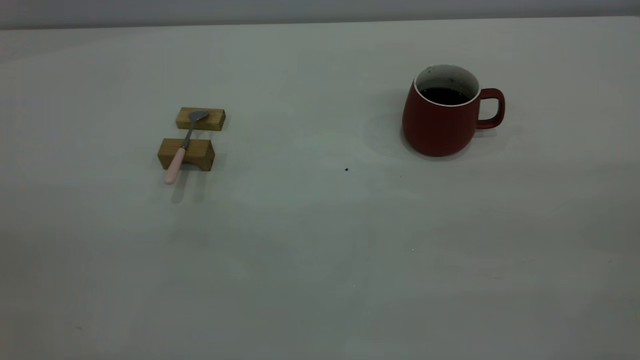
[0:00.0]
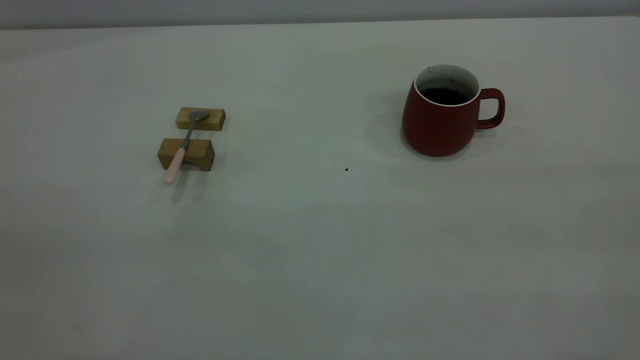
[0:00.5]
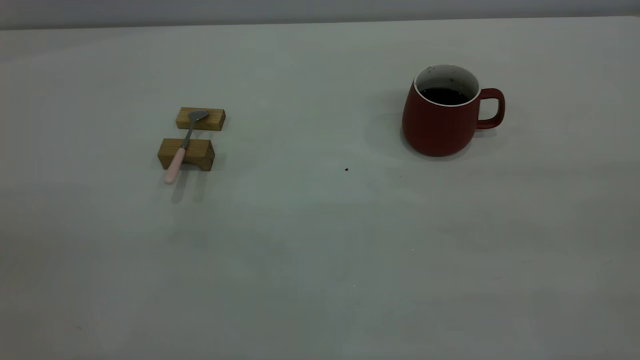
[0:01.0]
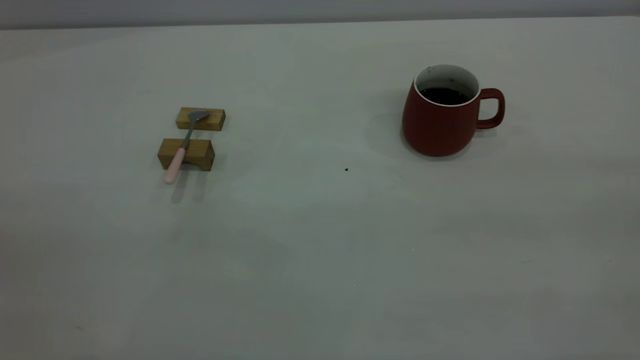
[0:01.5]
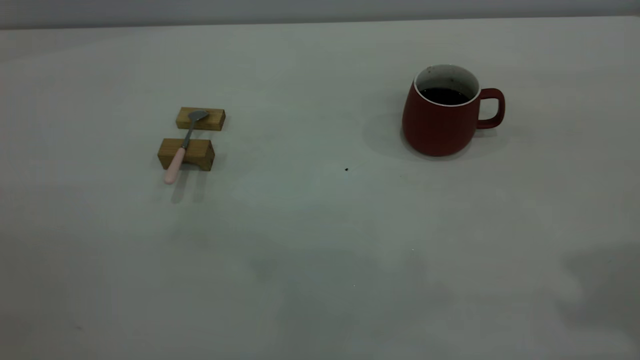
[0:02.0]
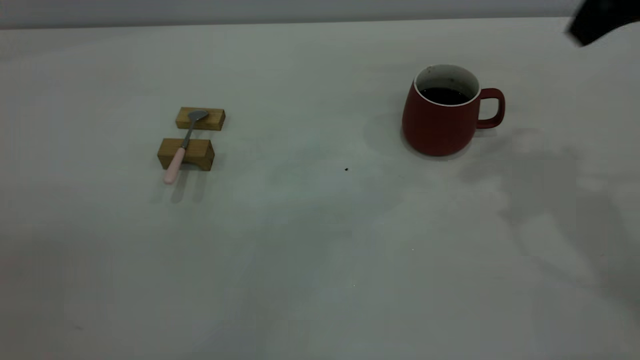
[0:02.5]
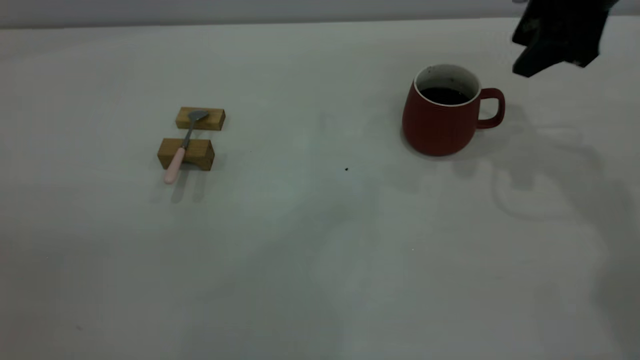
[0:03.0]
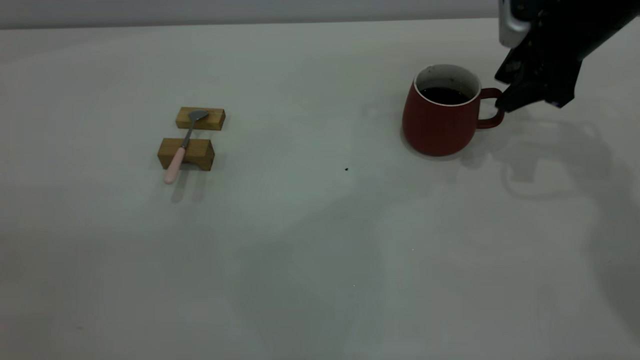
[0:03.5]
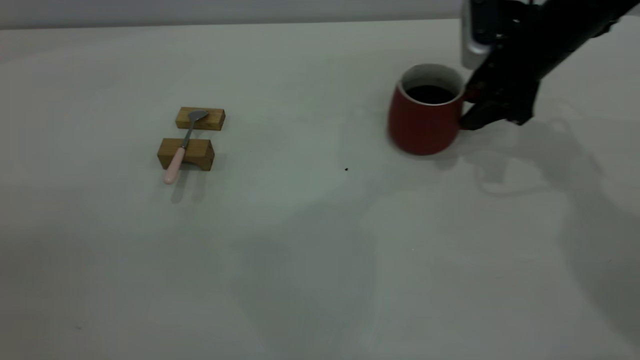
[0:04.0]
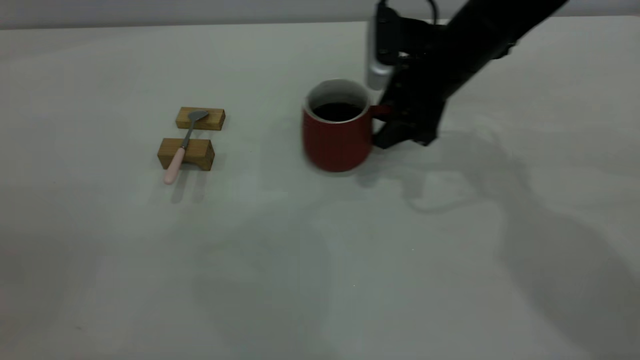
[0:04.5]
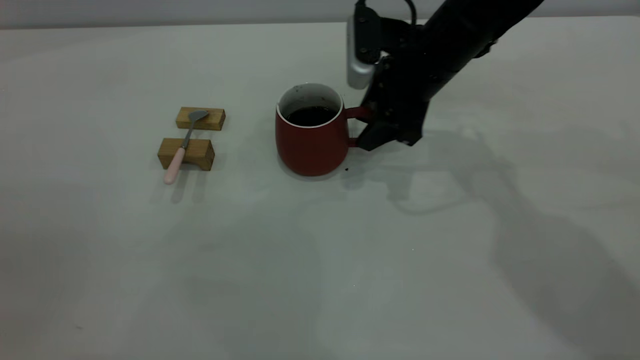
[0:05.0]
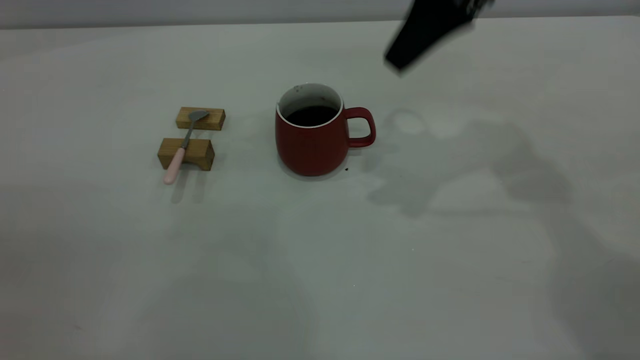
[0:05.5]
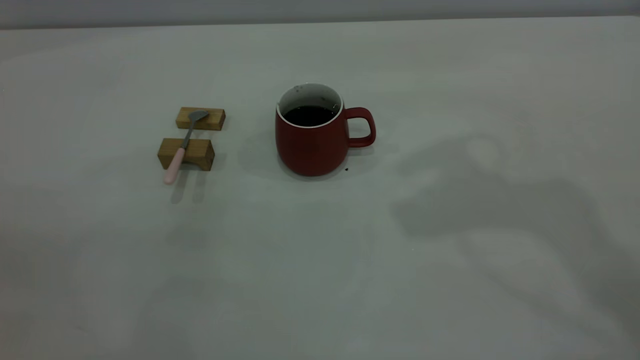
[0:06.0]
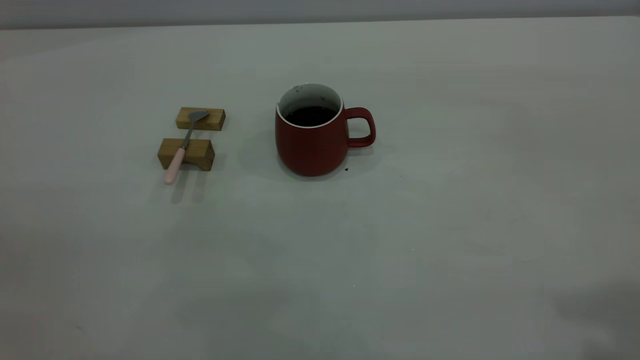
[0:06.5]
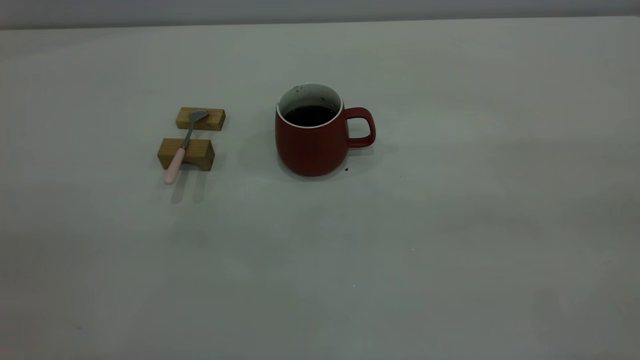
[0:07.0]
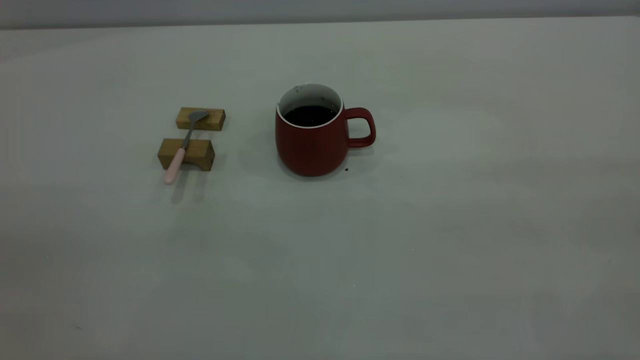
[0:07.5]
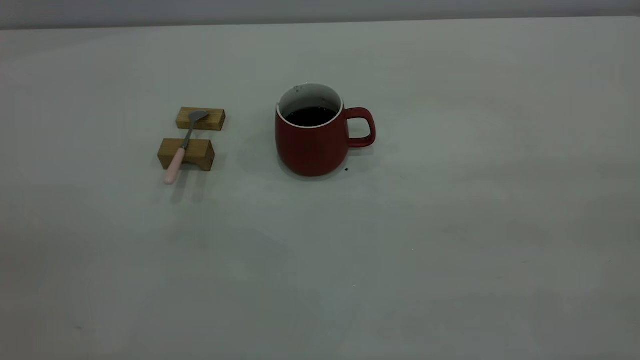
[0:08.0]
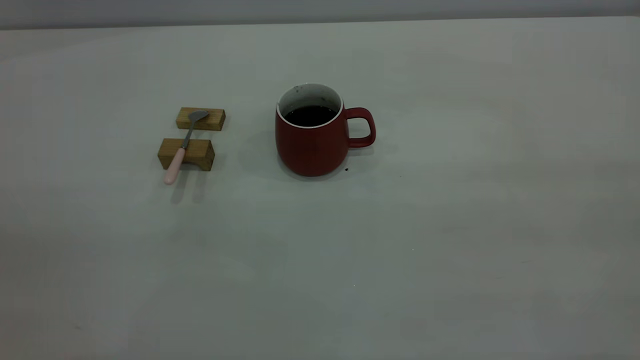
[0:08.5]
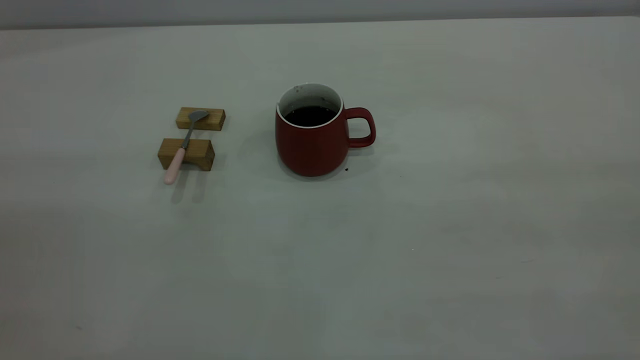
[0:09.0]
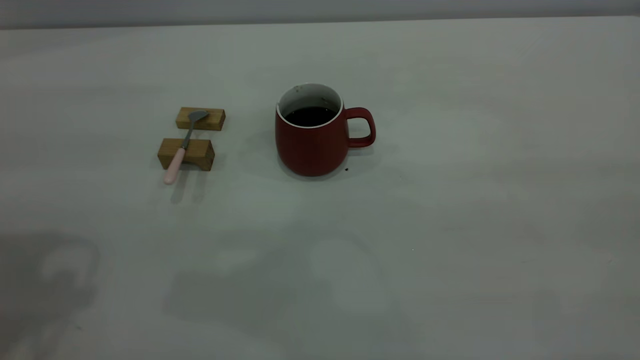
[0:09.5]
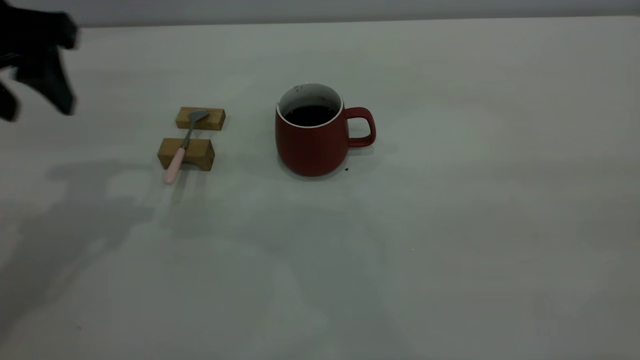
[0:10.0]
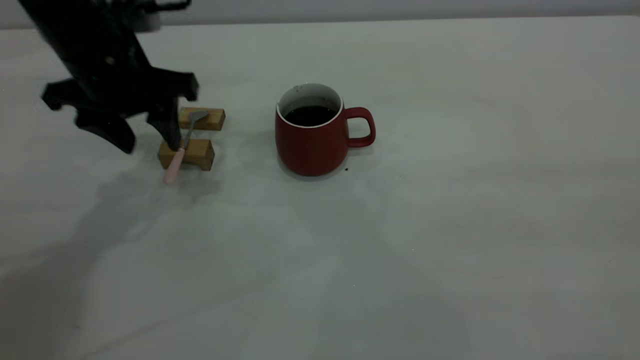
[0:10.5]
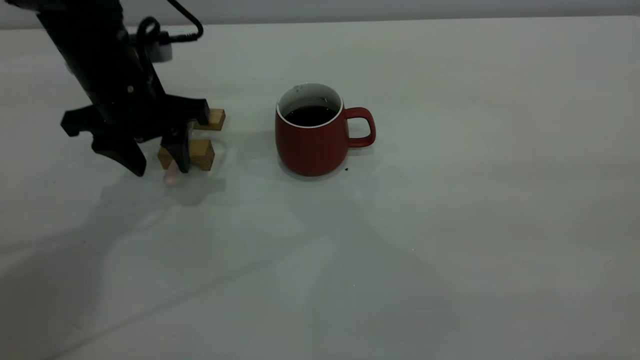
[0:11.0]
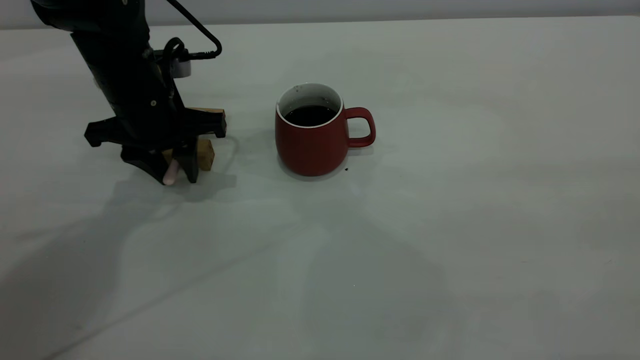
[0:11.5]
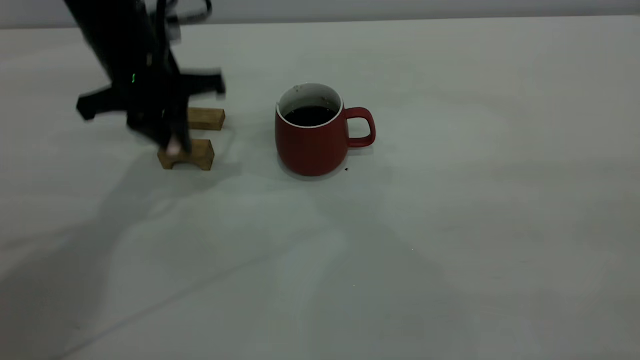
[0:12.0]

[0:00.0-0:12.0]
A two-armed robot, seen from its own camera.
Step, 0:00.0 to 0:05.0: Move the cup with coffee to the center of view.
0:02.0 to 0:04.0: The right gripper heads forward and downward, covering about 35 cm.
0:04.0 to 0:06.0: The right gripper heads upward and backward, covering roughly 35 cm.
0:08.0 to 0:10.0: The left gripper heads forward, covering about 30 cm.
0:10.0 to 0:12.0: The left gripper moves to the right, downward and forward, roughly 15 cm, and closes.

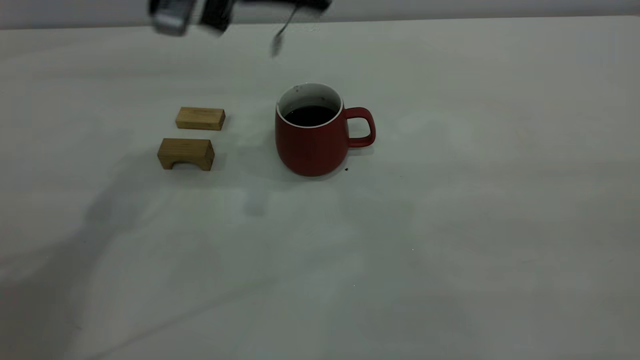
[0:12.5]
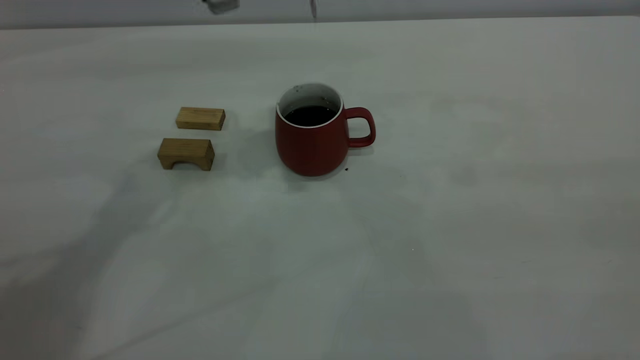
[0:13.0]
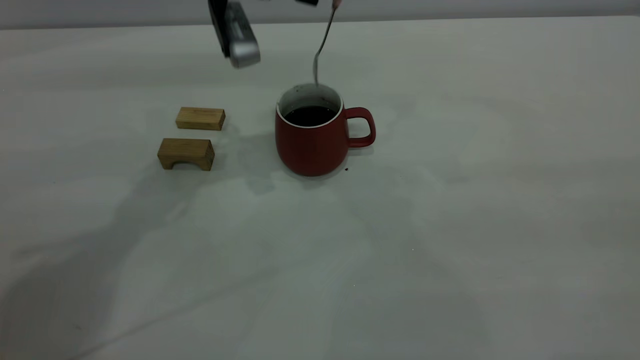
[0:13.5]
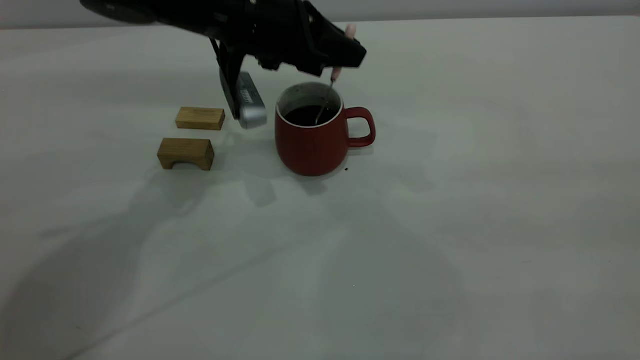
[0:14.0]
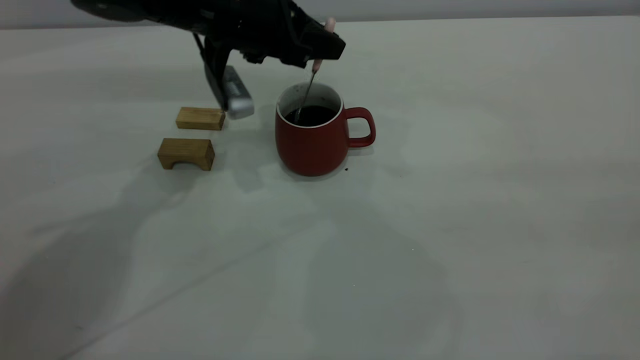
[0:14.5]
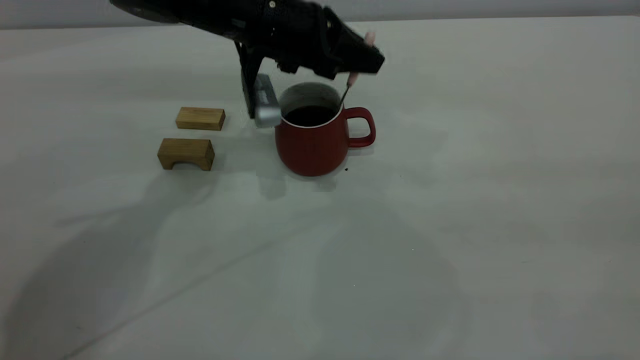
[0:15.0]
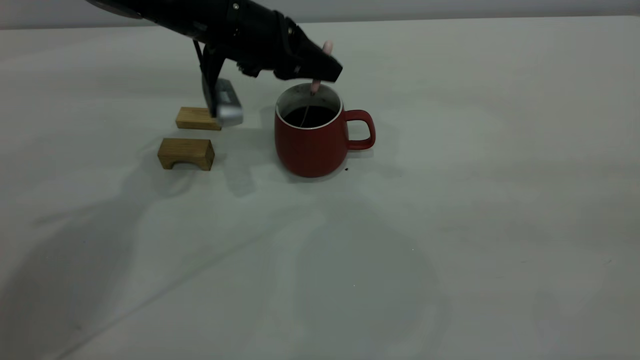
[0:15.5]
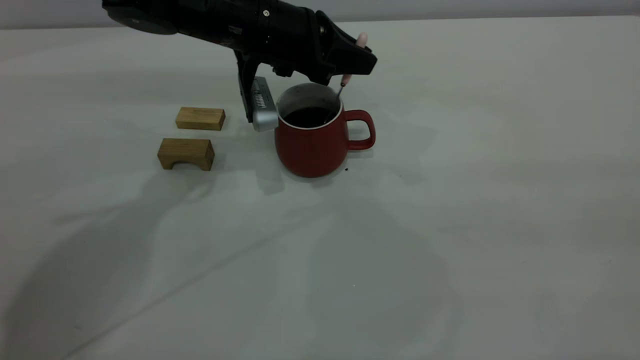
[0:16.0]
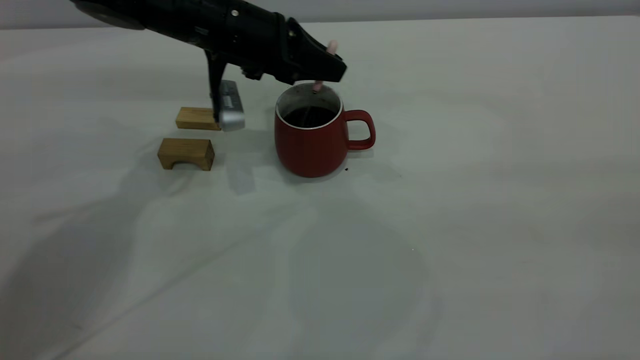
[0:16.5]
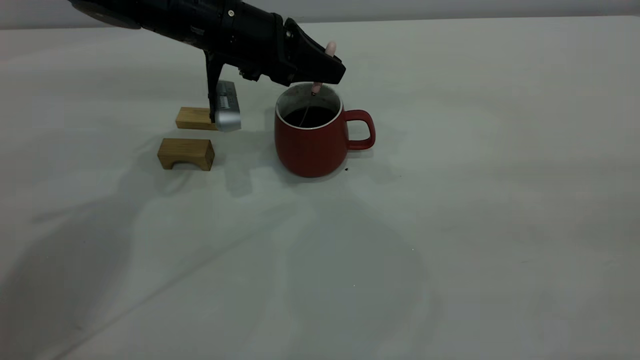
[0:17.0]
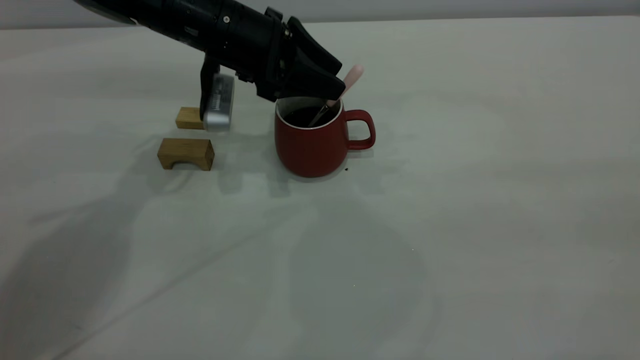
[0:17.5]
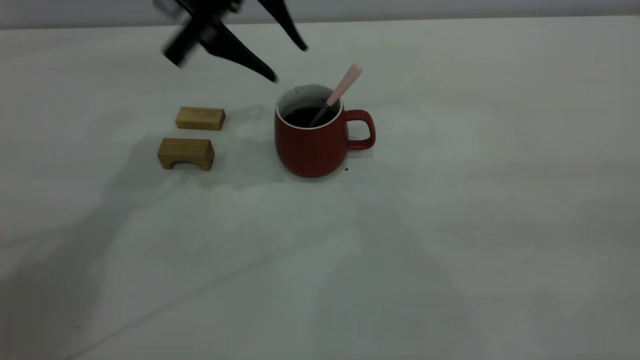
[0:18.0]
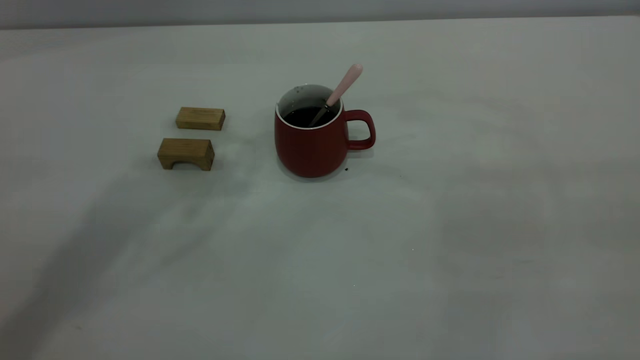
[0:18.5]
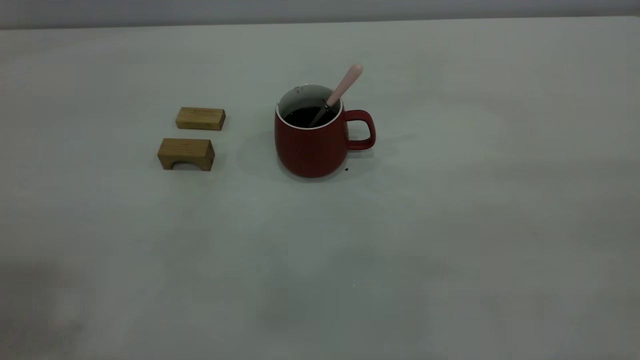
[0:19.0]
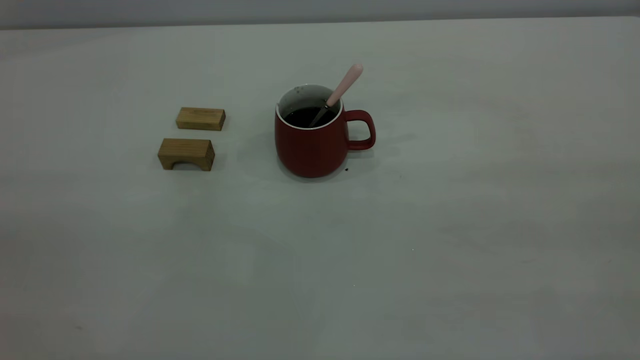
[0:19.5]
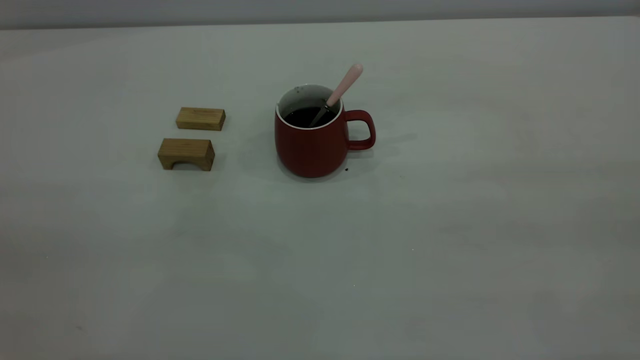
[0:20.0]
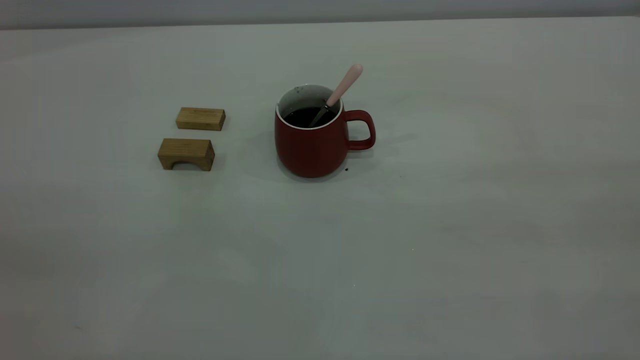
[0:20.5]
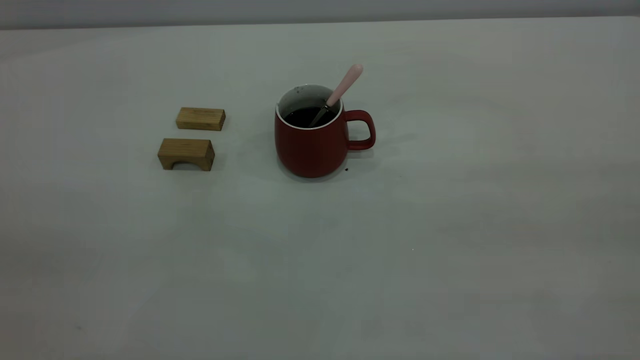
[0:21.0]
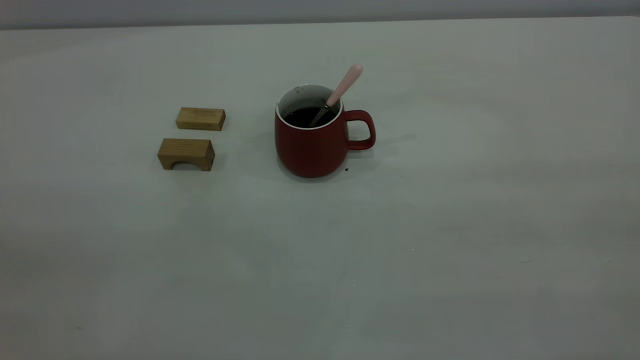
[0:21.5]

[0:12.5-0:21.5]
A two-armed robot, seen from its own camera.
Step, 0:12.5 to 0:17.5: Stir the coffee in the cup.
0:12.5 to 0:14.5: The left gripper shifts some 10 cm downward.
0:14.5 to 0:17.0: There are only small adjustments of the grippers.
0:17.0 to 0:19.5: The left gripper is displaced backward, upward and to the left by about 50 cm, and opens up.
